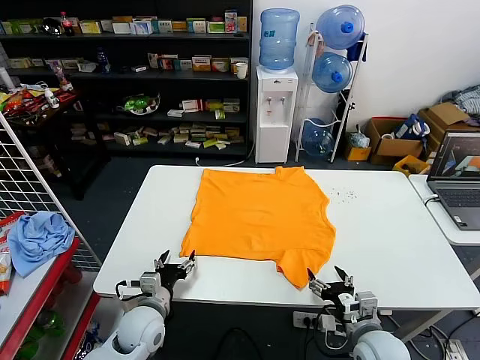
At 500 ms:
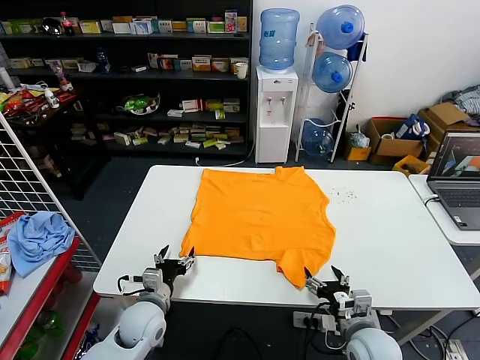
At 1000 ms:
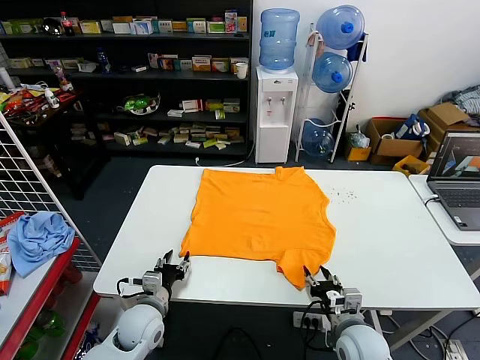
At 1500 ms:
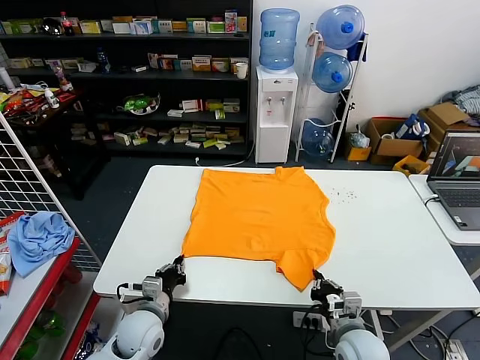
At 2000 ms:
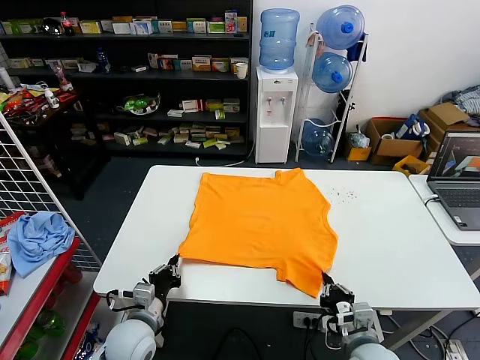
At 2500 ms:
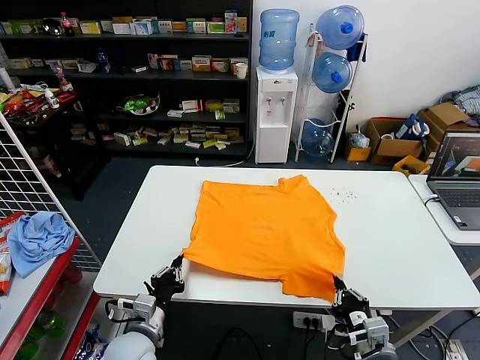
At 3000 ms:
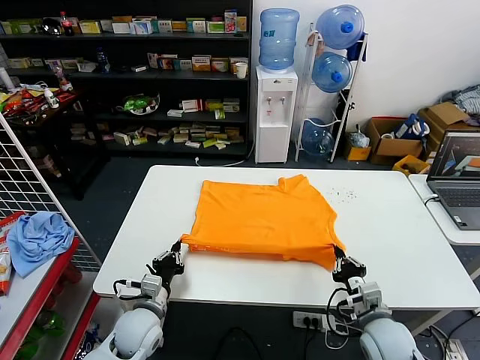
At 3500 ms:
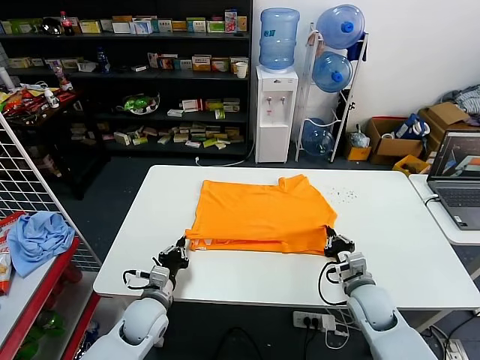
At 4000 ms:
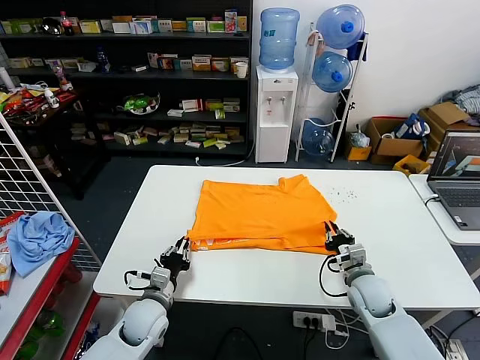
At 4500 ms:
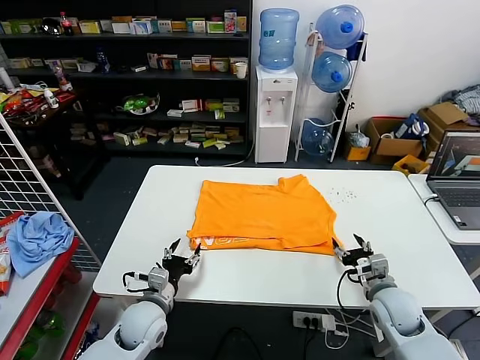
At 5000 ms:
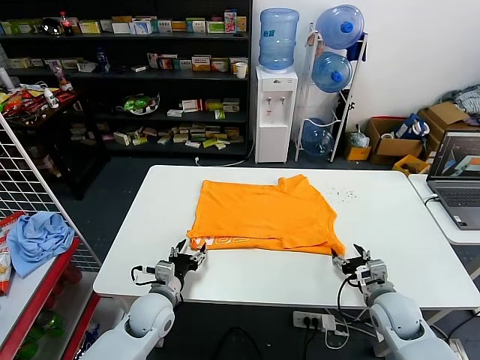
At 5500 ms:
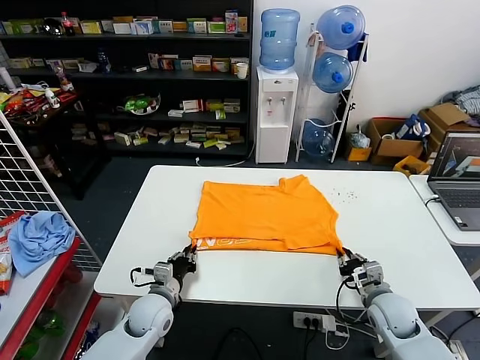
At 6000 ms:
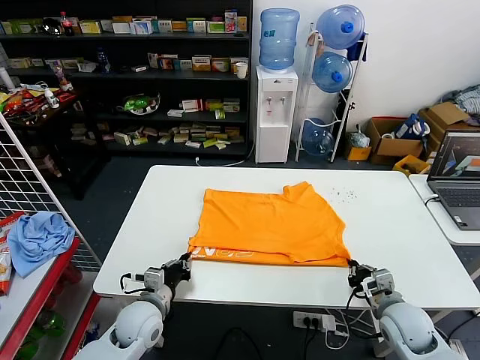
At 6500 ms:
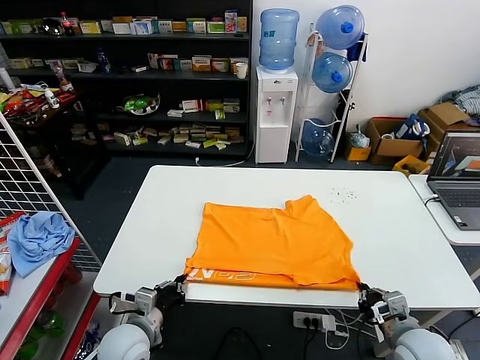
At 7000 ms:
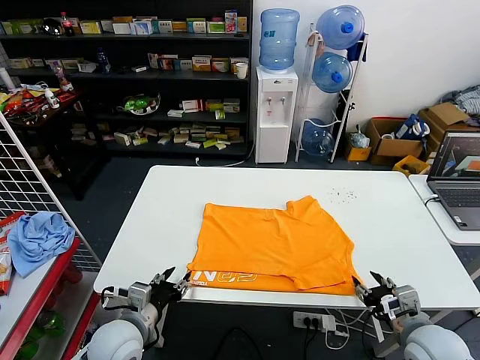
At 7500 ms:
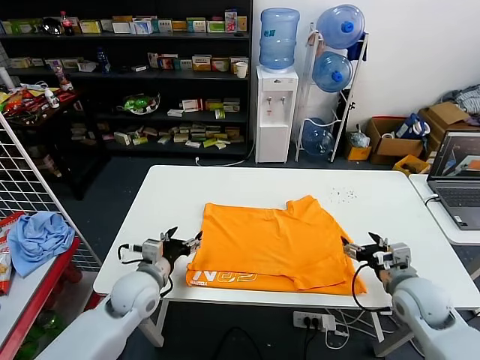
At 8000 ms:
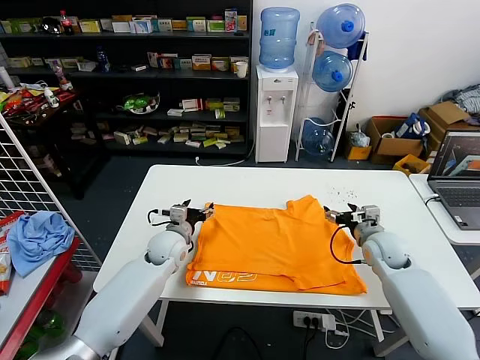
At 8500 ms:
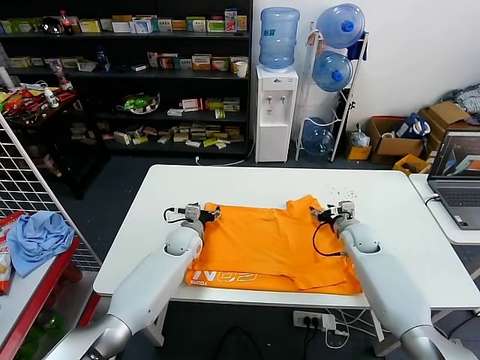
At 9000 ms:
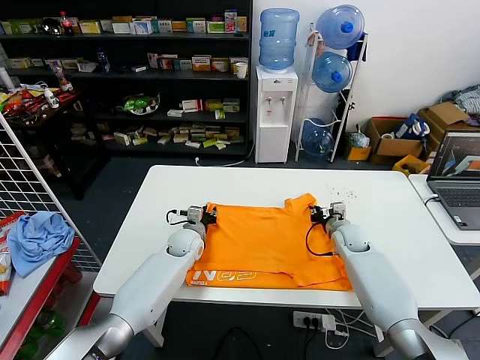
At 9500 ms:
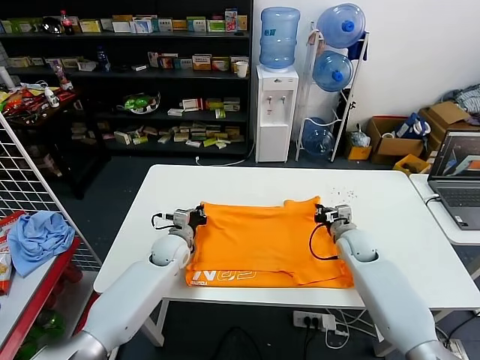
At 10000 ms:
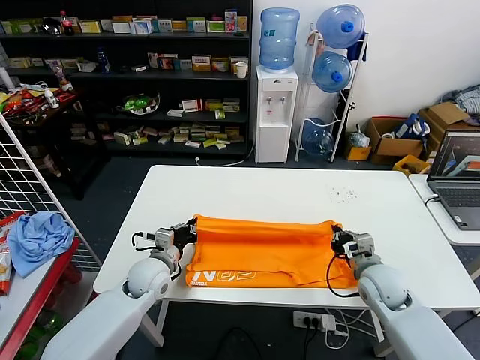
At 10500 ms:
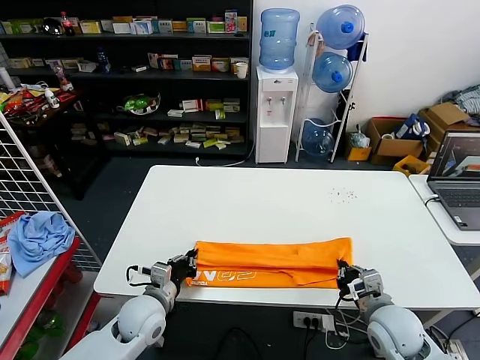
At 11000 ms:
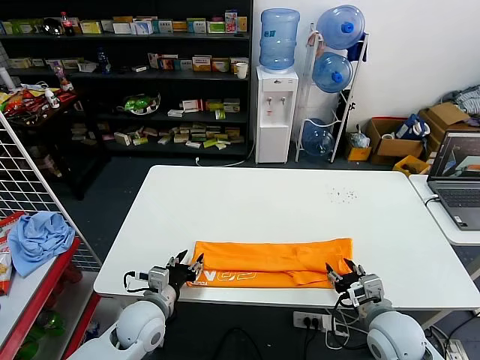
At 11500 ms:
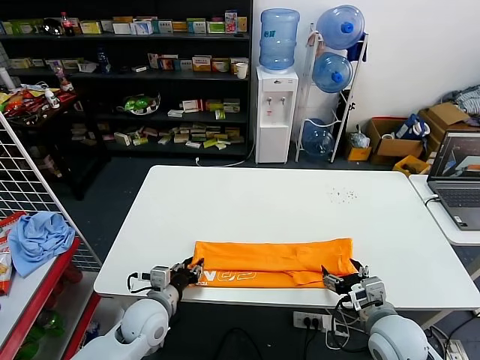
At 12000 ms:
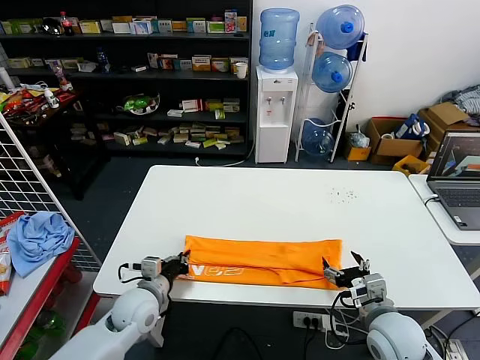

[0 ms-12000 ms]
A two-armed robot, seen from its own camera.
Task of the whole recording: fold and organize the clothes.
Step, 0 ms to 1500 ms: use both grippers simultaneously to clamp the lower edge of the clothing fabric.
Step, 2000 ms to 3500 ms: use both grippers to drag the lower edge of the fabric forward and fold it over the upper edge.
Step, 4500 ms to 6500 ms: Drag the clothes downward with both gripper.
Step, 7000 ms to 9000 ms: use both grippers simultaneously to clamp the upper edge of the clothing fabric.
Step, 9500 ms to 10500 ms: use both grippers to drag the upper edge of the fabric backward and fold it over the lower edge.
Step, 11000 ms to 11500 ms: use the left gripper to clamp the left edge of the fabric.
2000 ms to 4000 ms: The left gripper heads forward, covering about 5 cm. Meanwhile the right gripper heads forward, covering approximately 15 cm.
4000 ms to 6000 ms: The right gripper shifts approximately 10 cm backward, and opens and closes again, while the left gripper opens, then closes again.
6000 ms to 8000 ms: The two grippers go roughly 15 cm forward. The right gripper opens, while the left gripper opens up.
8000 ms to 10000 ms: The left gripper travels backward by some 5 cm, and closes its fingers; the right gripper shifts some 10 cm backward, and closes up.
10000 ms to 12000 ms: The two grippers go approximately 10 cm backward. The right gripper opens its fingers; the left gripper opens, then closes again.

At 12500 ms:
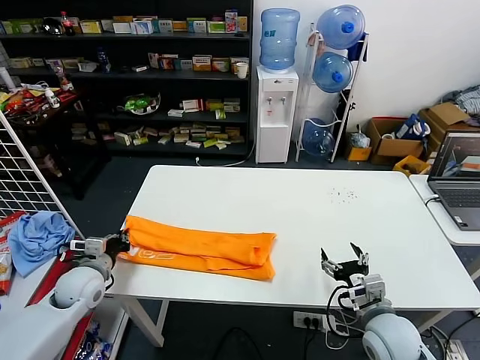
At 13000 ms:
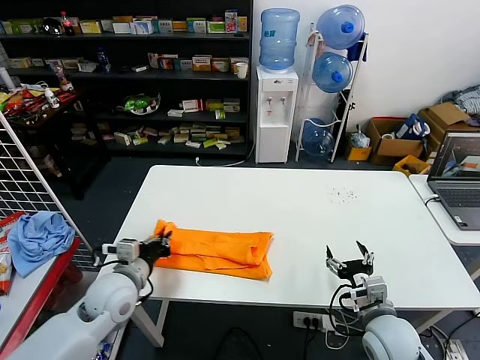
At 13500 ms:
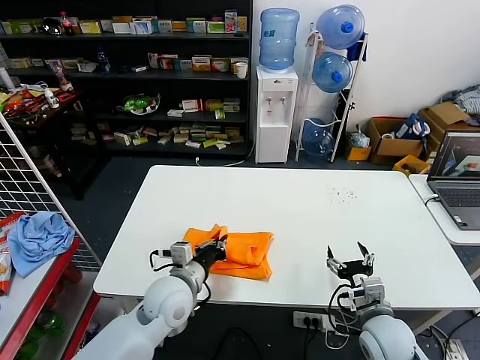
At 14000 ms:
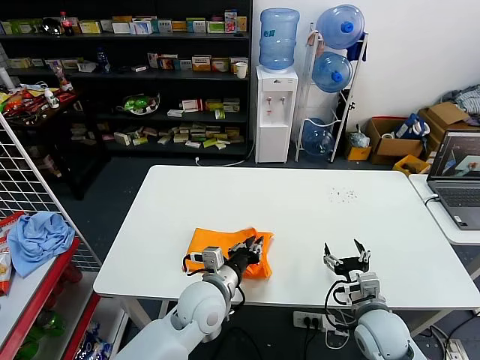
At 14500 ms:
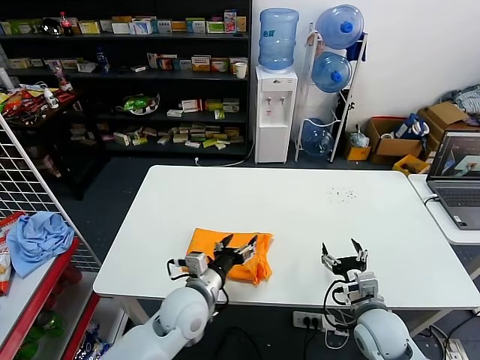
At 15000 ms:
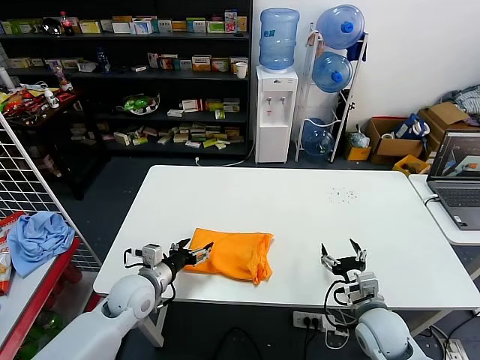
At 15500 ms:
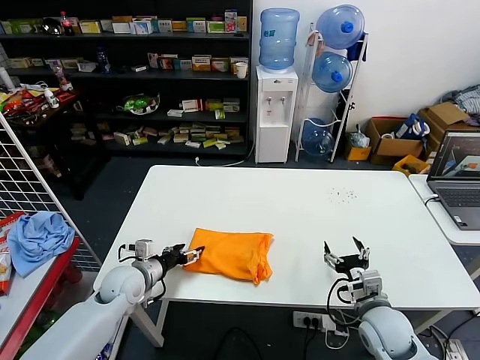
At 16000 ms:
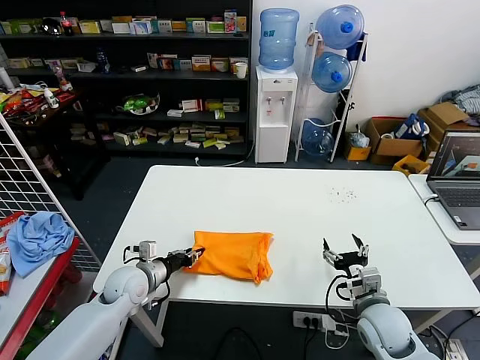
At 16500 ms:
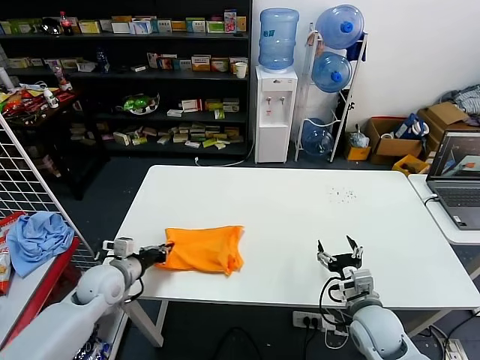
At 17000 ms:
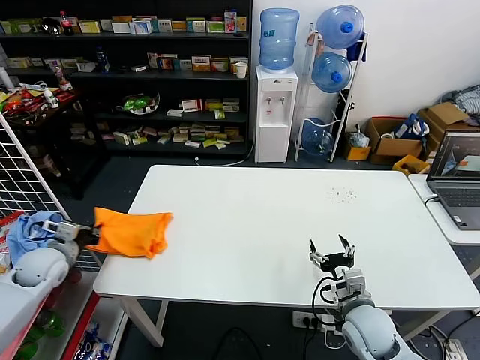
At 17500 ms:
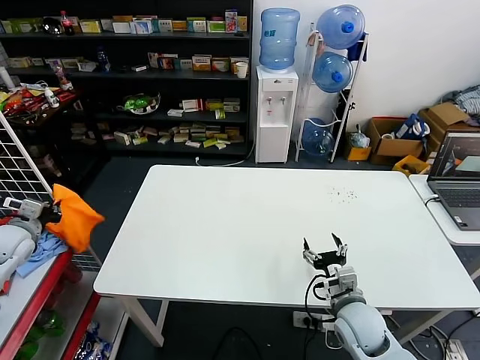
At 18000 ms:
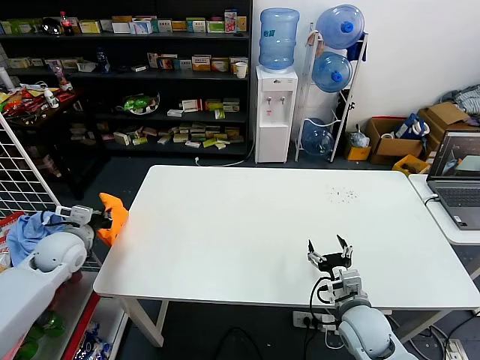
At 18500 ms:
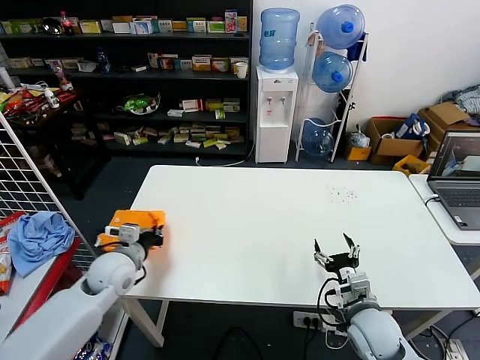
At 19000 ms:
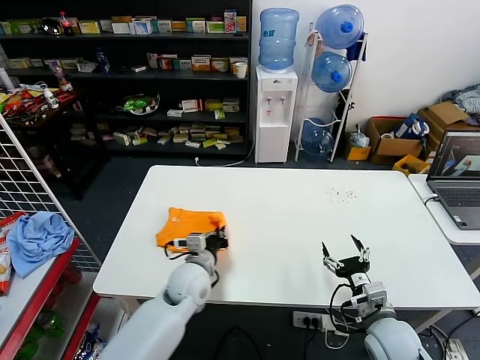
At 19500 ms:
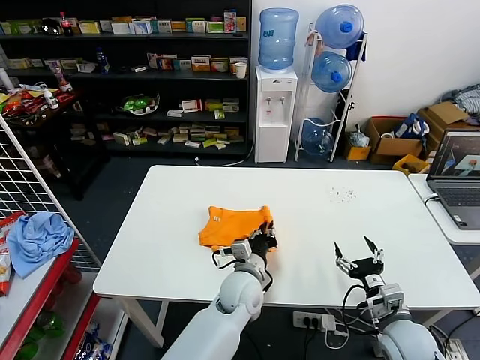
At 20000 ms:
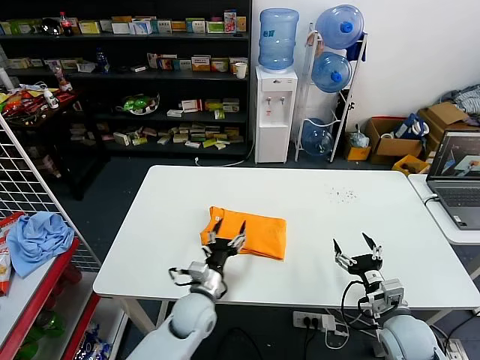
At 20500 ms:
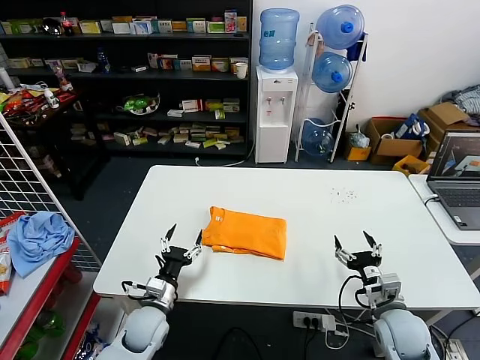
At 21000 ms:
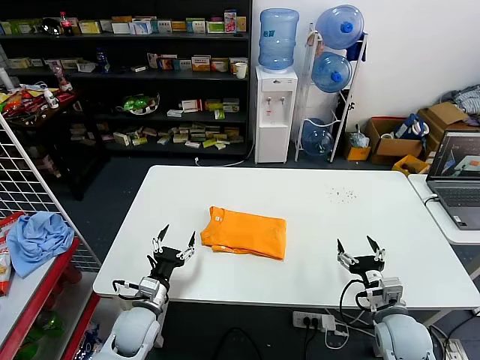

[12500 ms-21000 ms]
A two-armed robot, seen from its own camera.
Task of the whole recording: fold and organize the clothes.
Step, 12500 ms to 13500 ms: use the left gripper to drag the left edge of the fabric to the left and folds it over the right edge.
Step, 14000 ms to 19000 ms: Flip the folded clothes over with left gripper.
12500 ms to 14500 ms: The left gripper goes about 25 cm to the right, and opens.
14500 ms to 16500 ms: The left gripper goes about 20 cm to the left, and closes up.
16500 ms to 19000 ms: The left gripper moves to the right, some 15 cm.
19000 ms to 21000 ms: The left gripper shifts some 15 cm to the left, backward and downward, and opens up.

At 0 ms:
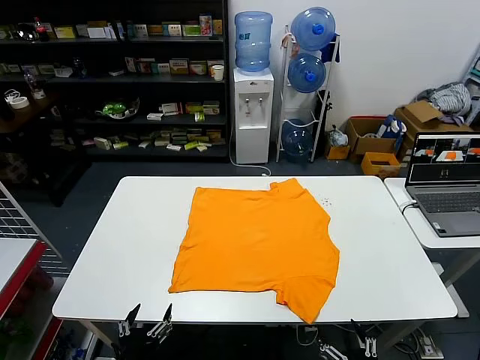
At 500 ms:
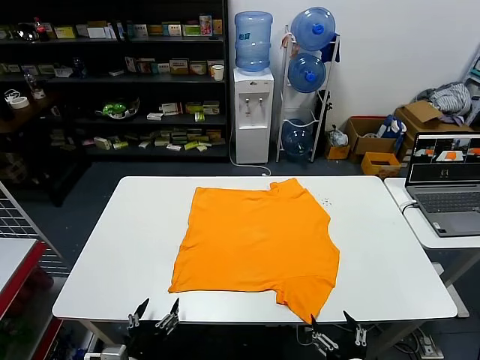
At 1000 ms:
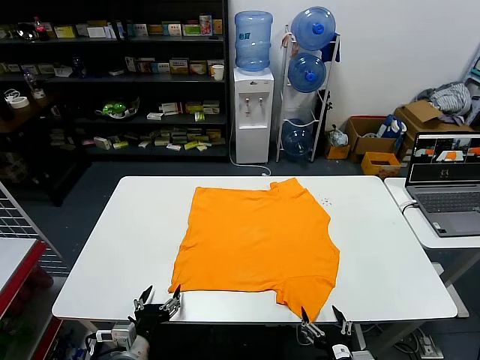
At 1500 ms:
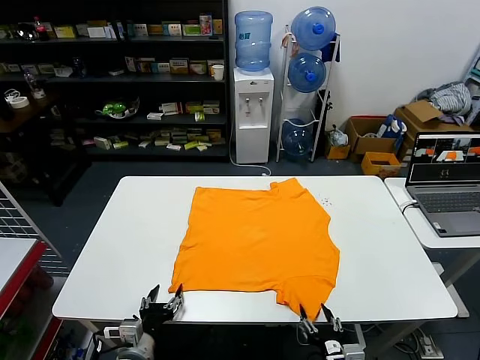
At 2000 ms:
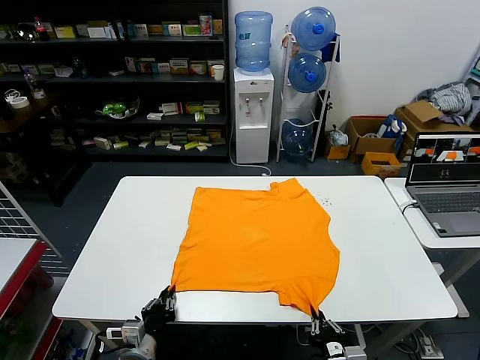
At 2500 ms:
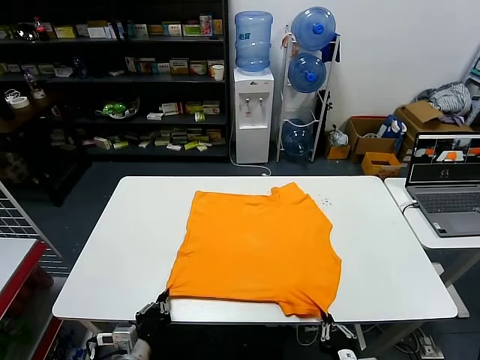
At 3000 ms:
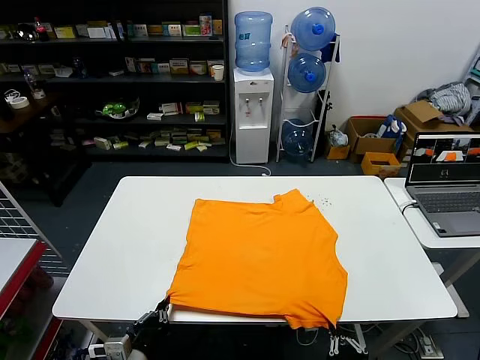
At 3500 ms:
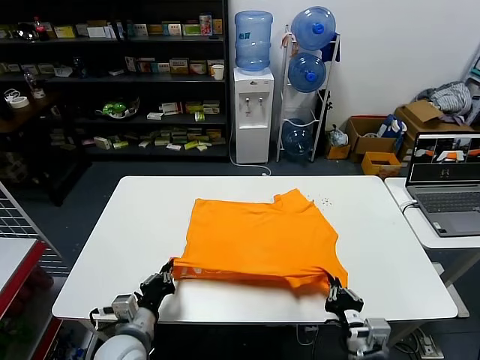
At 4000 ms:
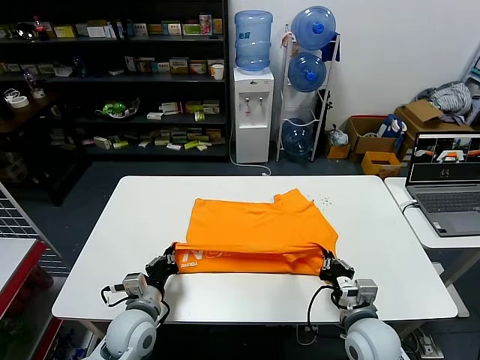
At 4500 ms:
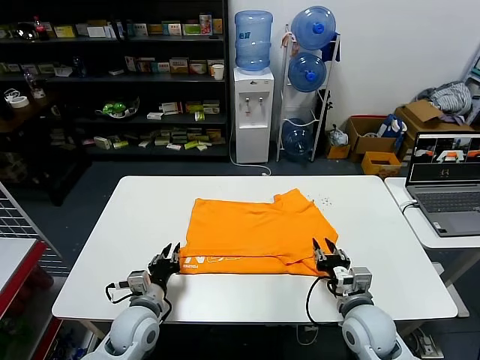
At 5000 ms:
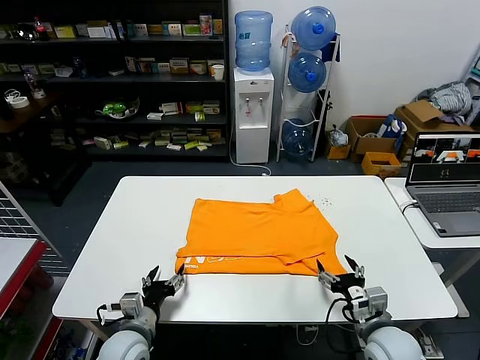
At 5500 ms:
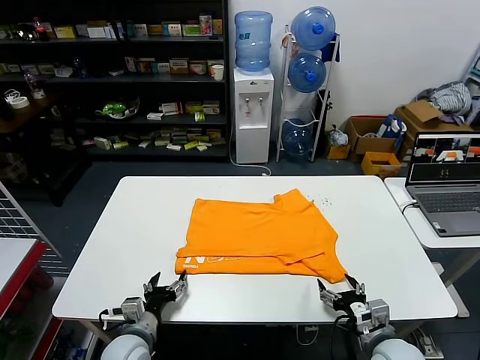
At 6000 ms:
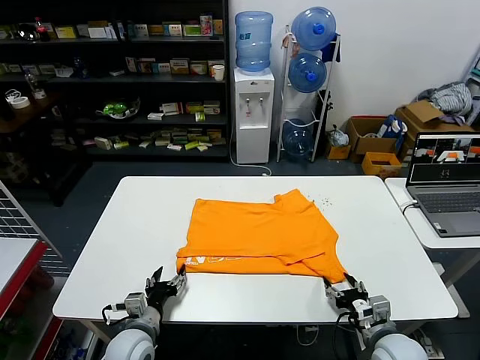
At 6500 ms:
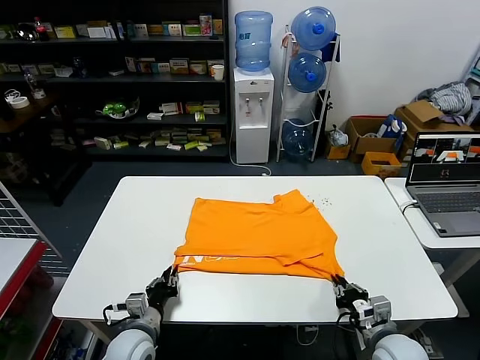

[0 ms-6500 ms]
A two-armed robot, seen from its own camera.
Task of the whole recording: fold and organize the clothes.
Step, 0 ms to 2000 ms: use both grippers simultaneously to clamp the lower edge of the clothing fabric.
Step, 2500 ms to 4000 ms: use both grippers to drag the lower edge of the fabric forward and fold it over the upper edge.
2000 ms to 4500 ms: The grippers both shift forward by approximately 10 cm. The right gripper opens up.
4500 ms to 6500 ms: The left gripper ends up about 5 cm from where it was, and opens, then closes once more, while the right gripper travels to the right by roughly 5 cm, and closes its fingers.
